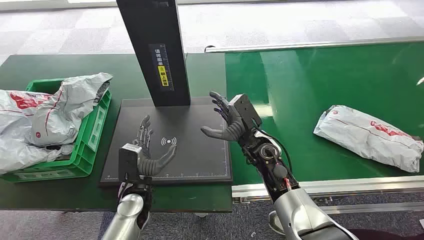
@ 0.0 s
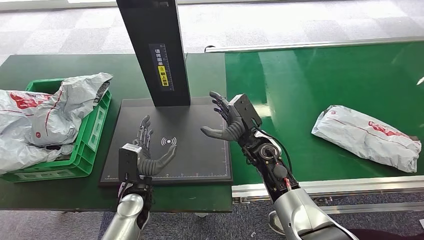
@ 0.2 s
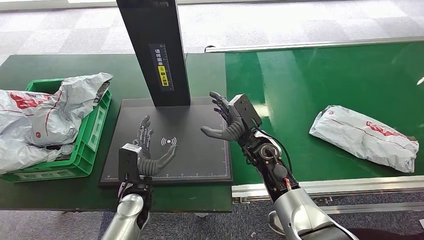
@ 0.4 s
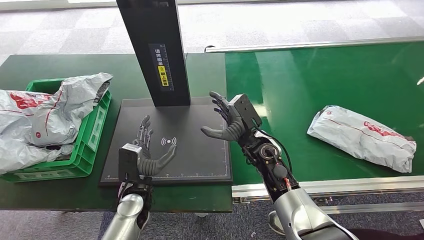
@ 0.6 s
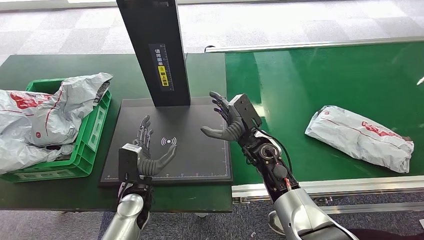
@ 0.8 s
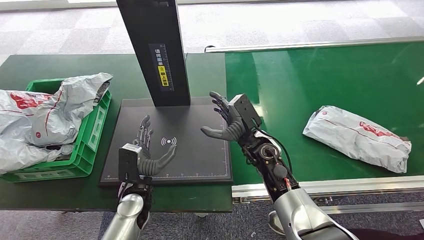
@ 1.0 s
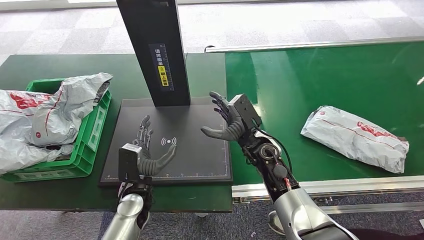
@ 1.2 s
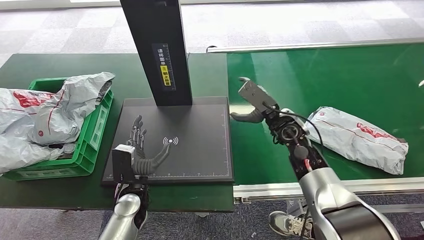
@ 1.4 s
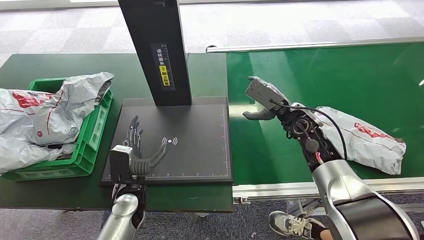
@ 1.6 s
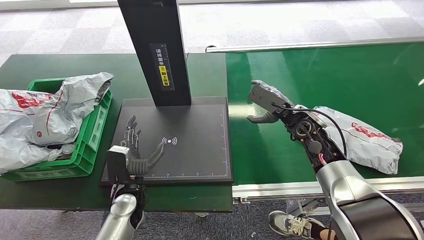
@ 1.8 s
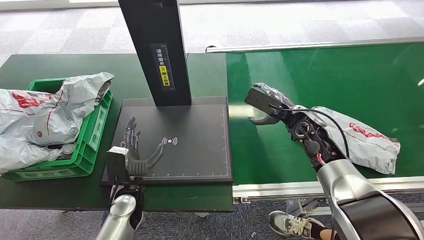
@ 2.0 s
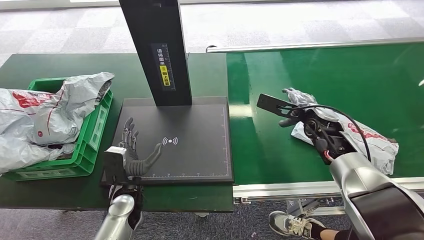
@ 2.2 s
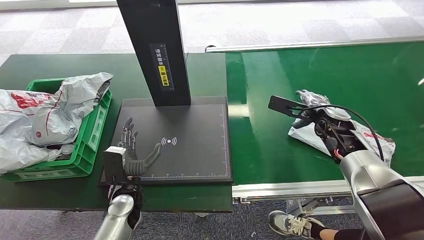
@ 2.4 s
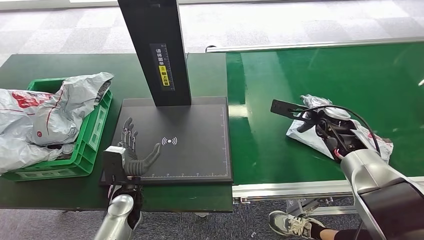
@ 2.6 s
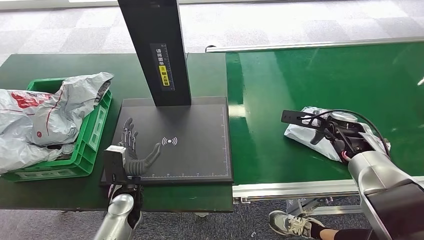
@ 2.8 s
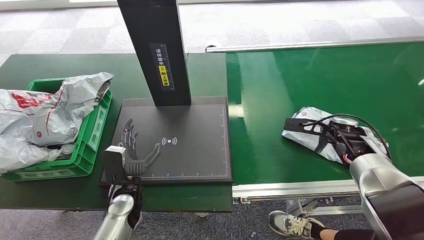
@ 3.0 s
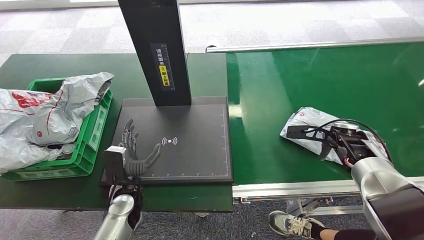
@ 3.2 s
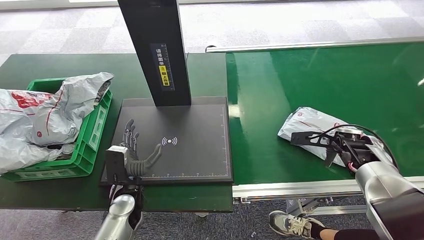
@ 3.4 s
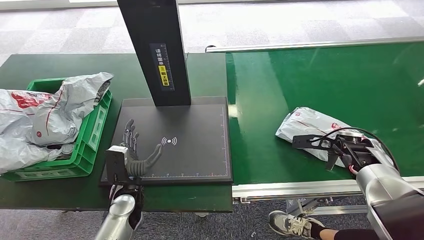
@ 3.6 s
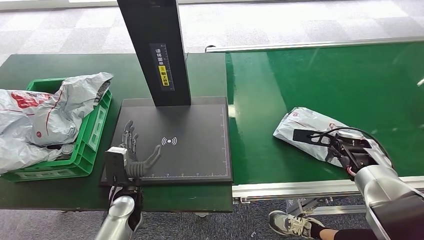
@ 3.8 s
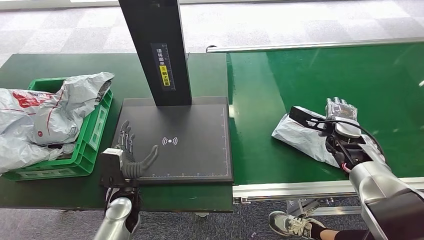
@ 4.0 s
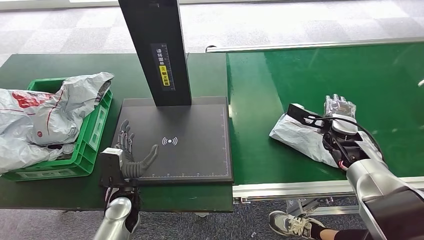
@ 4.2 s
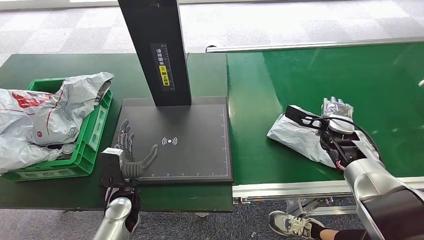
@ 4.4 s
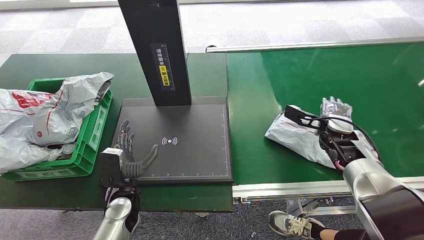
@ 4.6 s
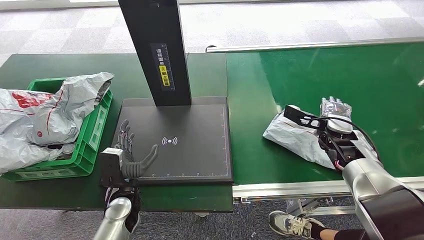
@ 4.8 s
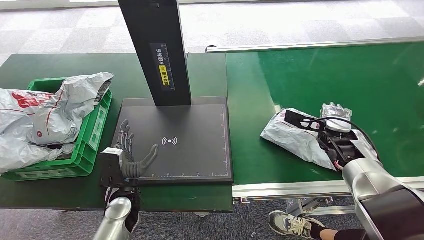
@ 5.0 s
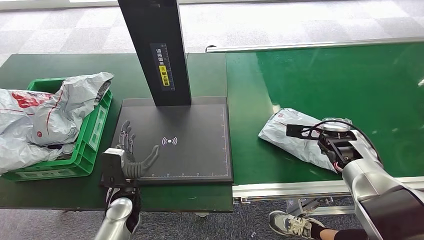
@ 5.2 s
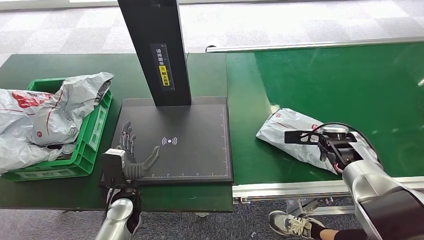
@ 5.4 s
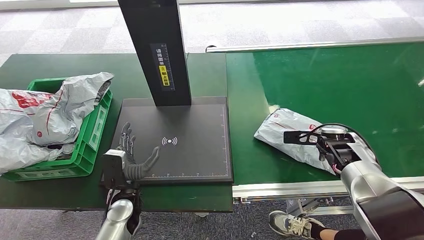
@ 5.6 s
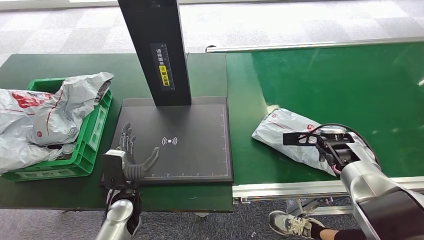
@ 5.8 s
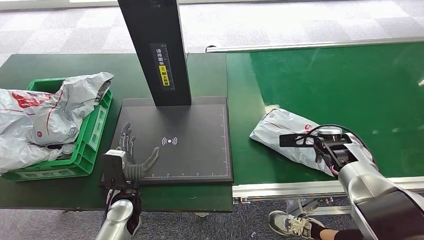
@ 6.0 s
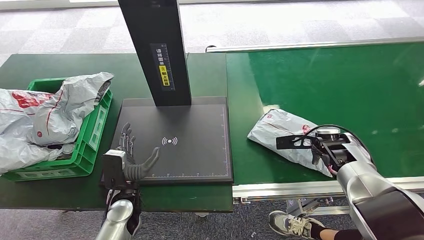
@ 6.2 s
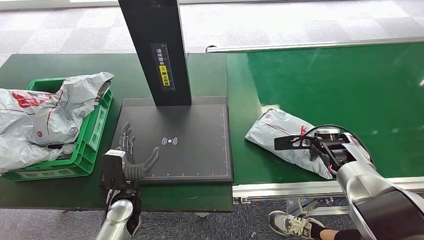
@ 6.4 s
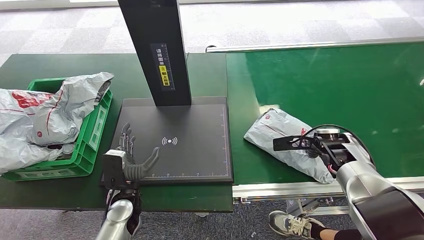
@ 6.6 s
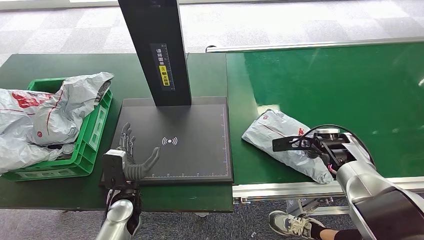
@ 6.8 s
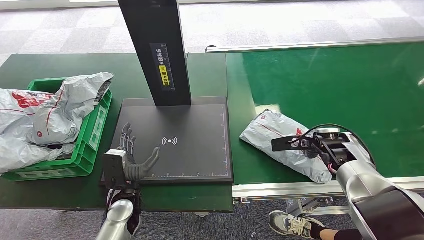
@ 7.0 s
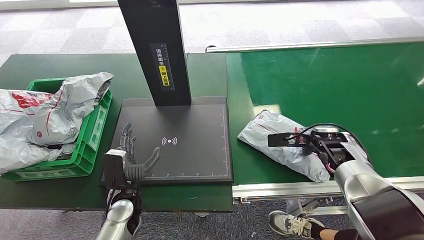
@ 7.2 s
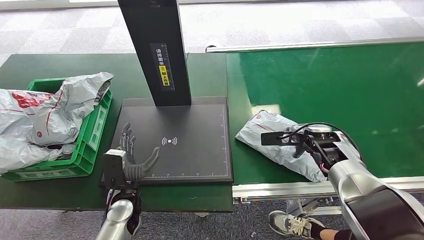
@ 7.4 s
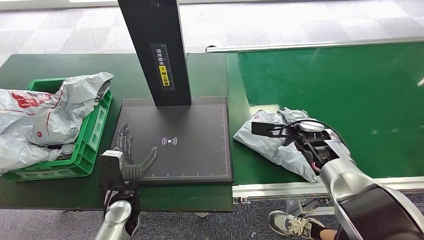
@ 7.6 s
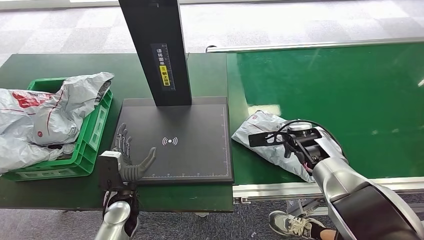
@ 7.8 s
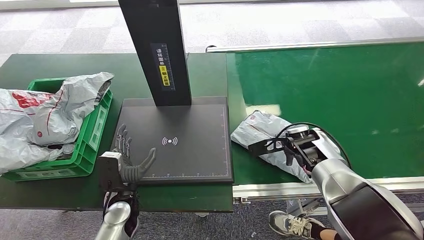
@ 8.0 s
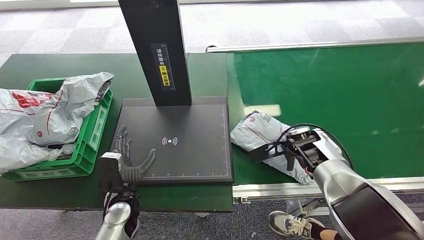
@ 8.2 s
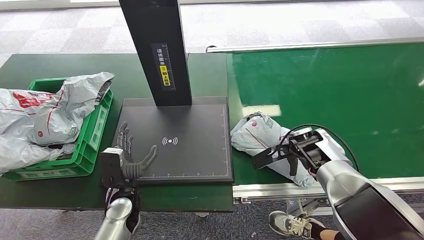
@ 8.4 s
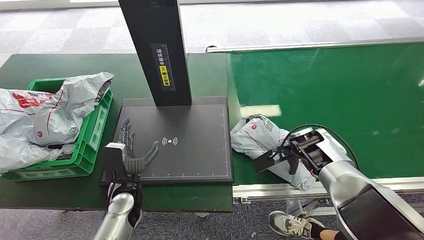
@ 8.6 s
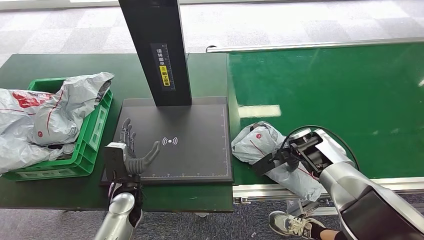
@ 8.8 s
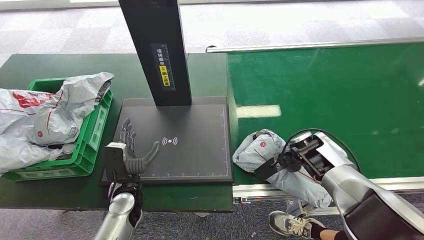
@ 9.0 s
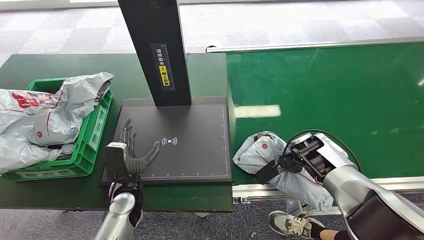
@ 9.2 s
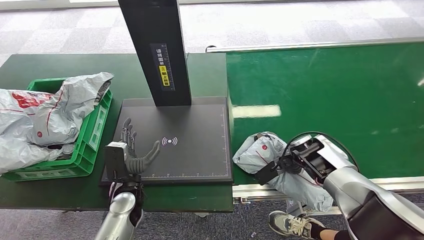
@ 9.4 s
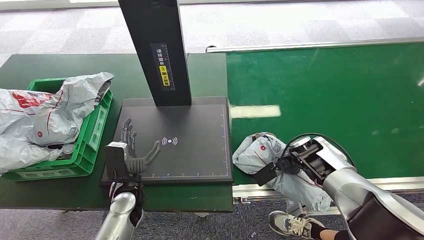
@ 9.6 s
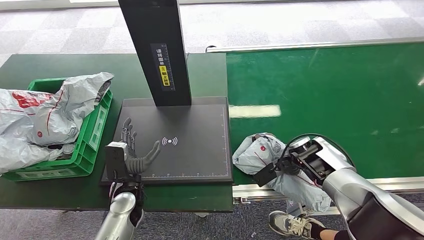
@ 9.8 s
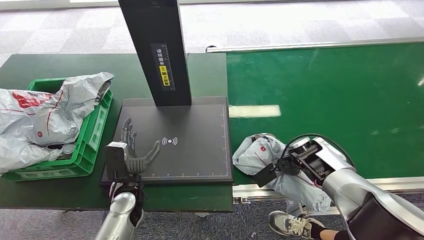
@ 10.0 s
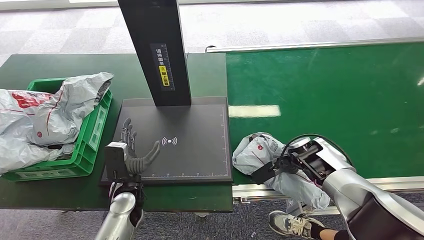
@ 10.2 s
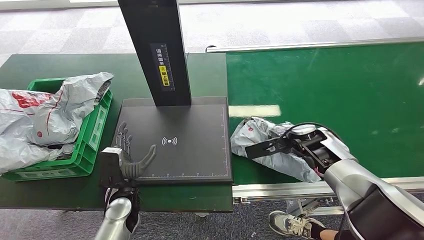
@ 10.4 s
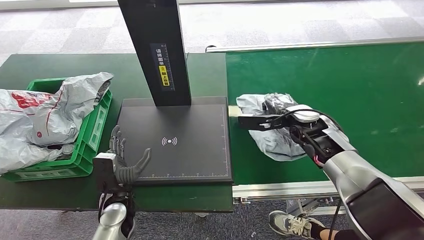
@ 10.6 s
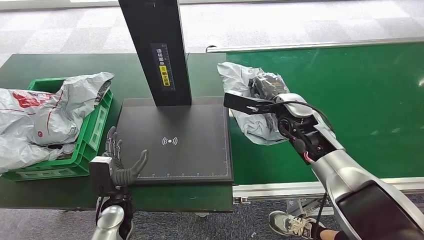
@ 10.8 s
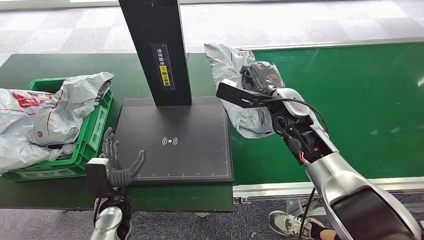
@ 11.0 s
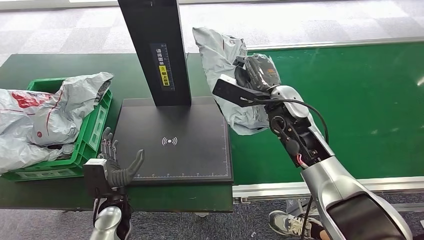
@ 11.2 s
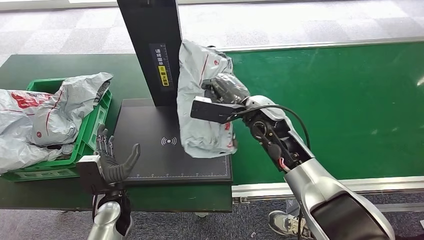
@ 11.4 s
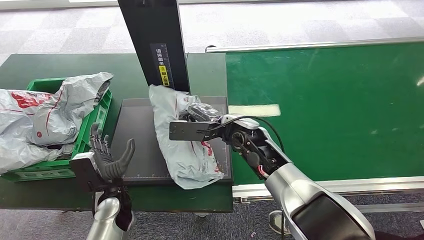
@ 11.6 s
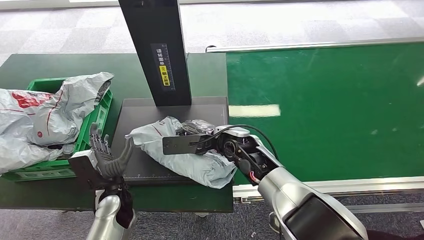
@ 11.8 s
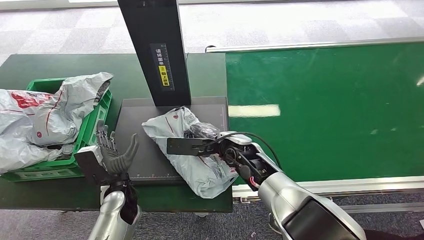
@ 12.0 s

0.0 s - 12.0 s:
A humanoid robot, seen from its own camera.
Step, 0.0 s - 10.8 s: Pick up the package from the conveyor belt.
1.6 s - 3.0 s: The right hand shifts approximately 15 cm to the right.
6.0 s - 7.6 s: The right hand heads to the left, covering some 5 cm.

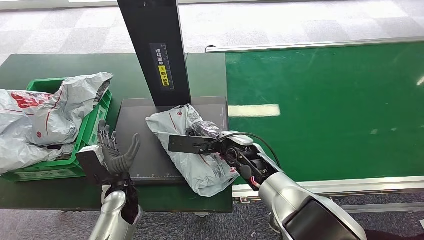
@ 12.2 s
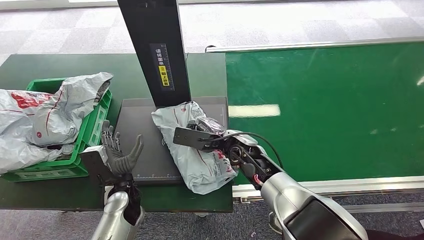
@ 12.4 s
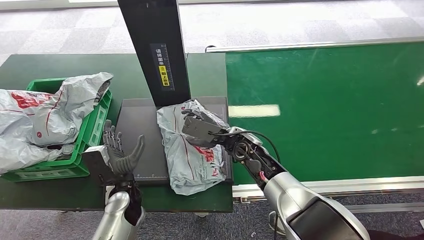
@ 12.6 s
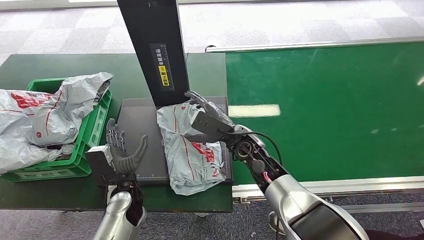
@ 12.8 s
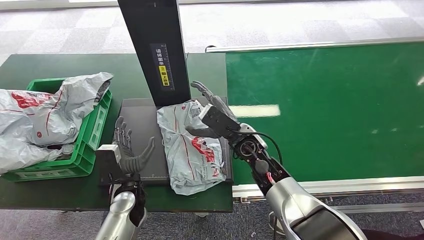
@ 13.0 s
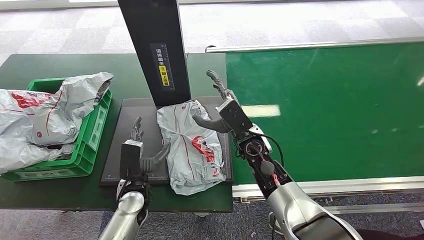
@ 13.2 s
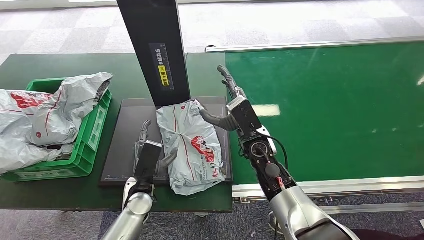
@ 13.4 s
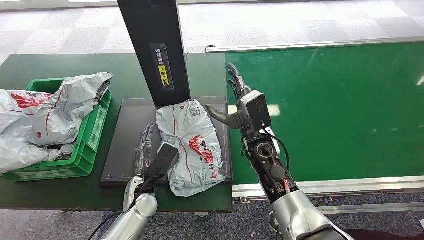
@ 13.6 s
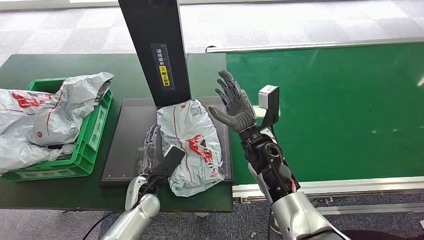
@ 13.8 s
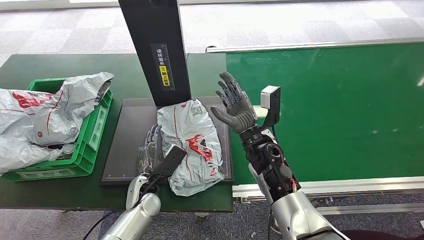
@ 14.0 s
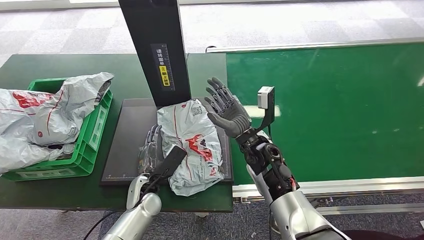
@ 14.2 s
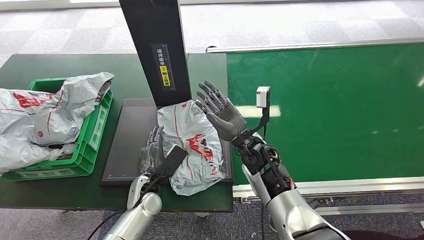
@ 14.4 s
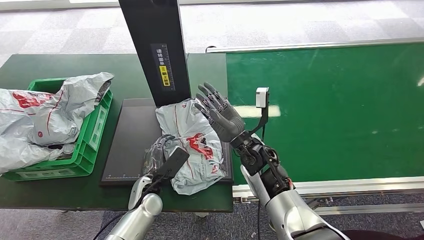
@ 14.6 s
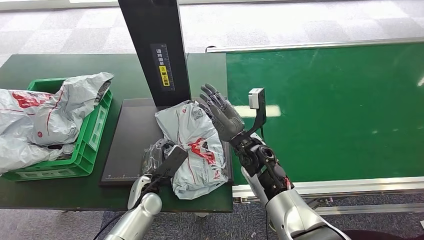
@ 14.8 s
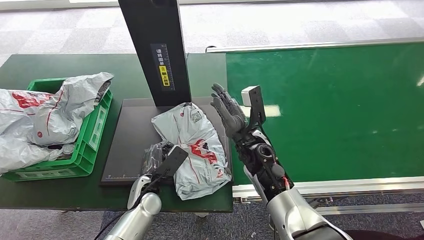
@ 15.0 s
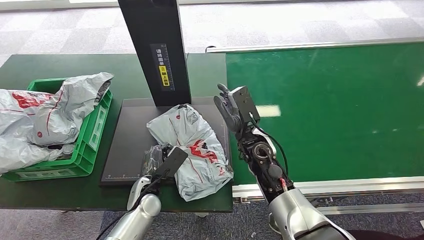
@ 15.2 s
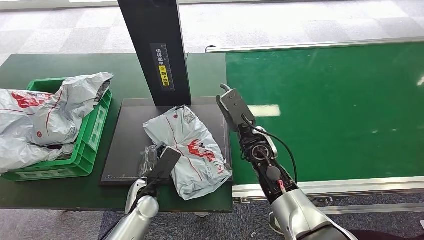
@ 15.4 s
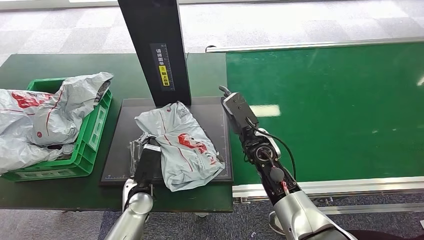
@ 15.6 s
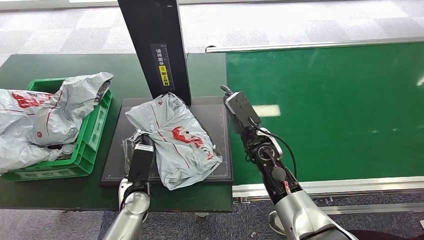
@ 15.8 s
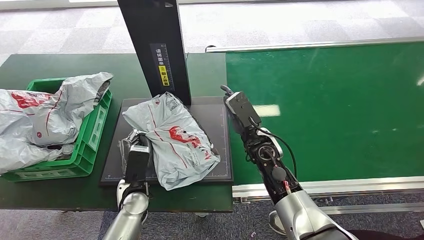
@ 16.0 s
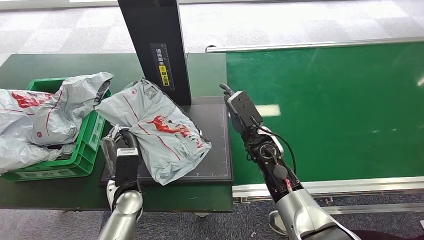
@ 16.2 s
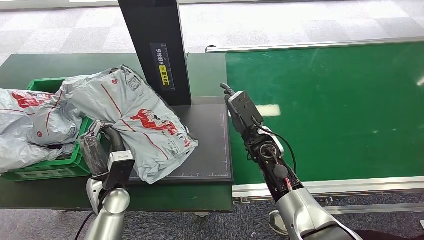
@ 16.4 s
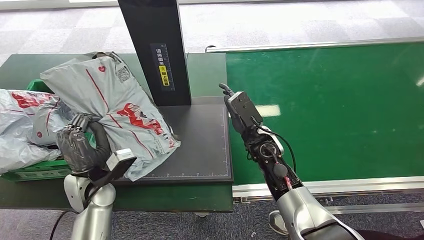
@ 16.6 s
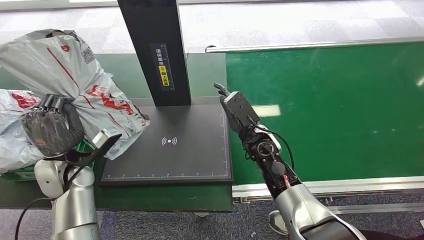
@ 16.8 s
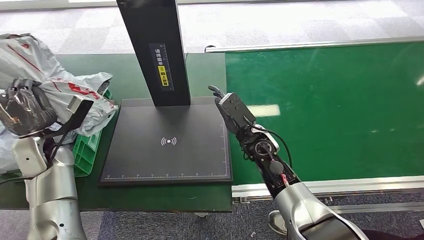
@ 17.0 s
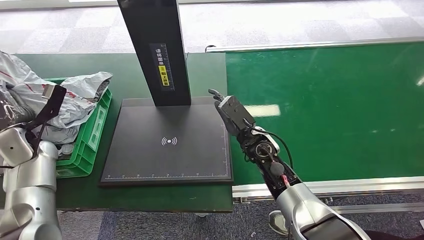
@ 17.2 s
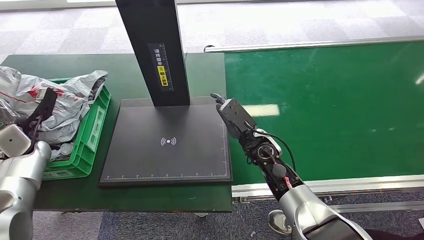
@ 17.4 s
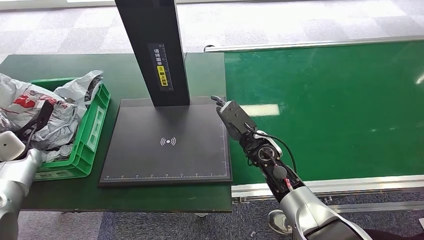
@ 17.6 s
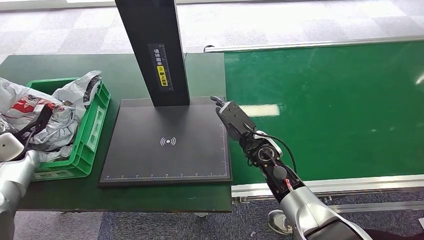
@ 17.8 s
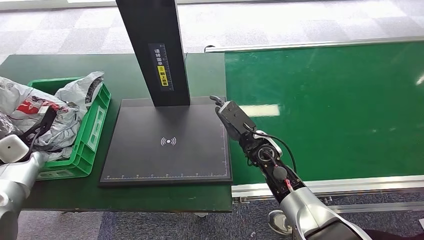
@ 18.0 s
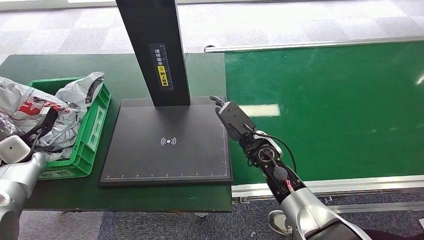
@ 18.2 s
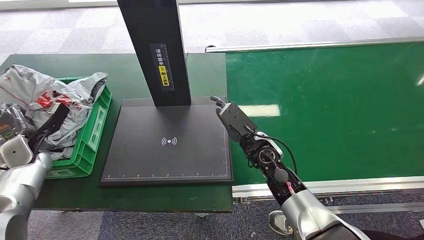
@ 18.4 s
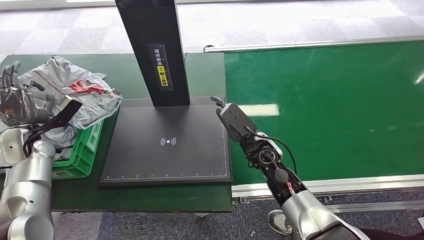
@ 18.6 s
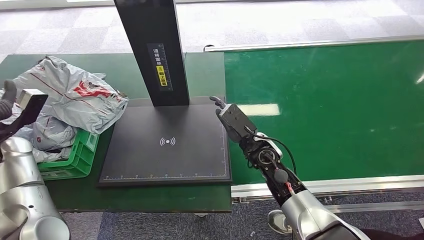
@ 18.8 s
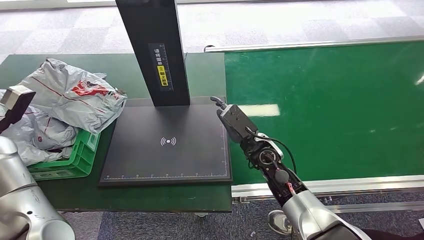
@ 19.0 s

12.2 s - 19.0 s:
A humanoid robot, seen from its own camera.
Step, 13.2 s - 17.0 s: Pick up the package from the inbound machine.
15.0 s - 16.2 s: The left hand shifts about 5 cm upward.
17.6 s - 19.0 s: The left hand goes about 10 cm upward.
